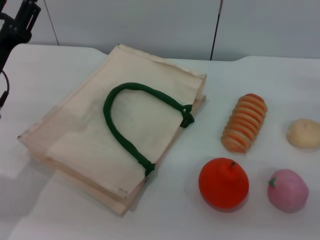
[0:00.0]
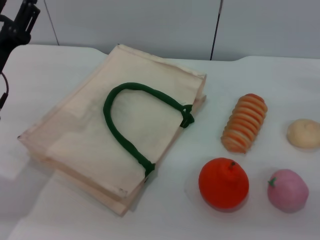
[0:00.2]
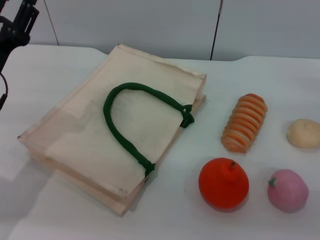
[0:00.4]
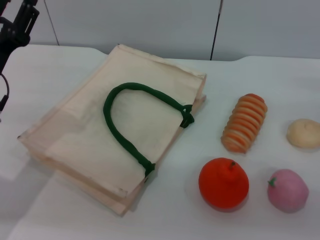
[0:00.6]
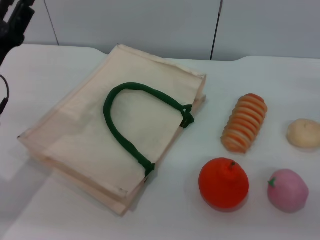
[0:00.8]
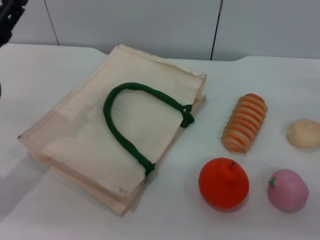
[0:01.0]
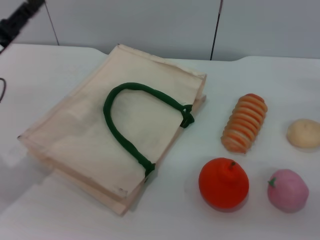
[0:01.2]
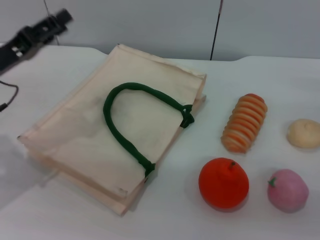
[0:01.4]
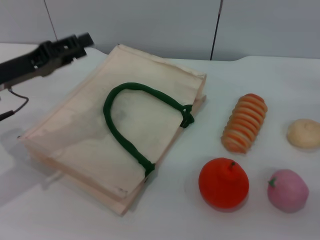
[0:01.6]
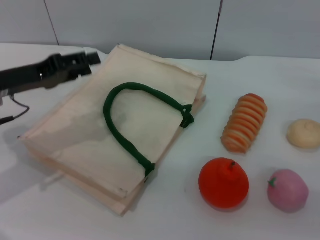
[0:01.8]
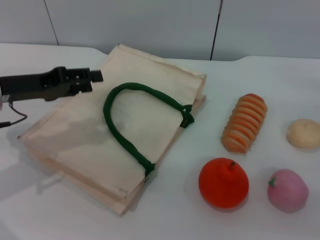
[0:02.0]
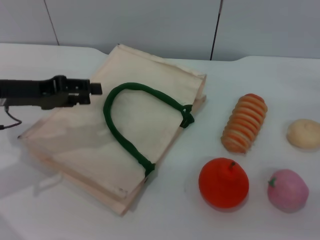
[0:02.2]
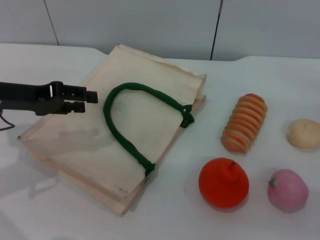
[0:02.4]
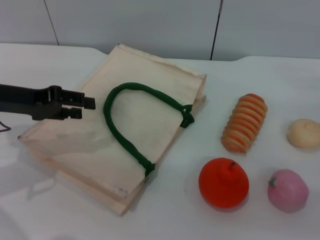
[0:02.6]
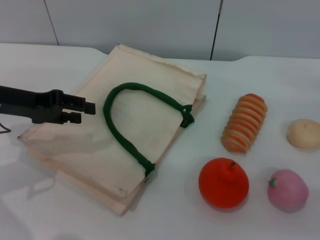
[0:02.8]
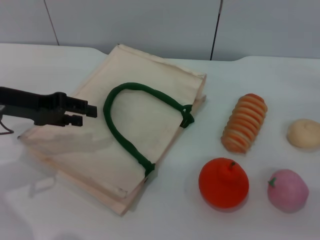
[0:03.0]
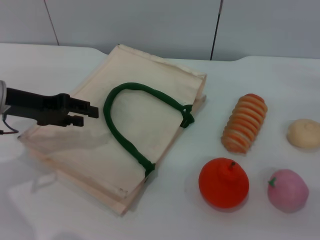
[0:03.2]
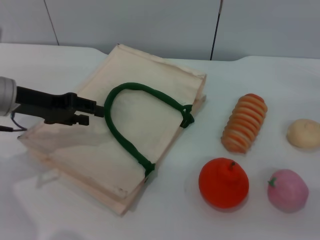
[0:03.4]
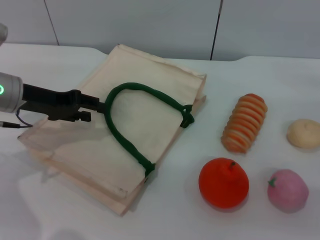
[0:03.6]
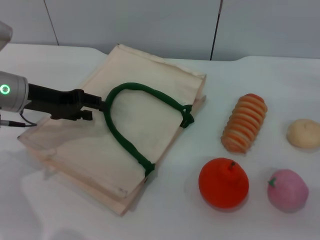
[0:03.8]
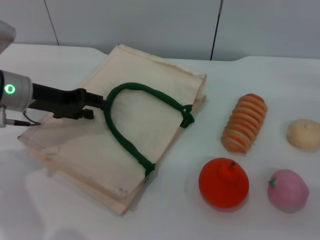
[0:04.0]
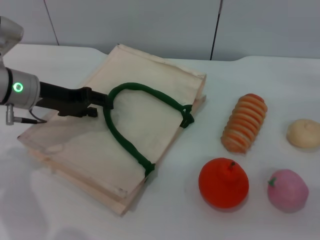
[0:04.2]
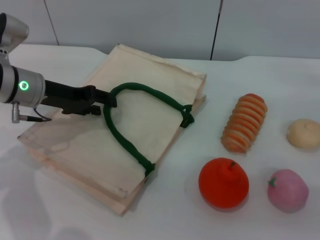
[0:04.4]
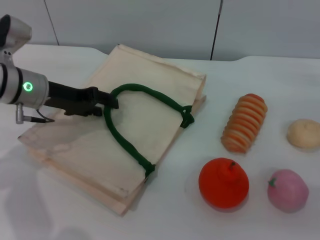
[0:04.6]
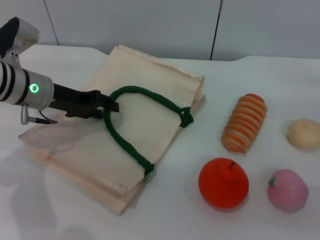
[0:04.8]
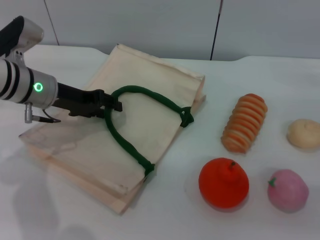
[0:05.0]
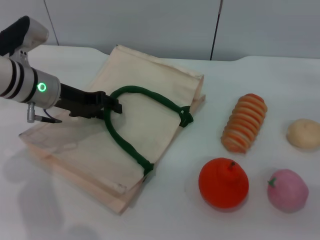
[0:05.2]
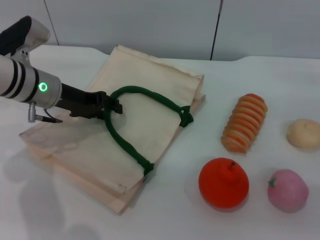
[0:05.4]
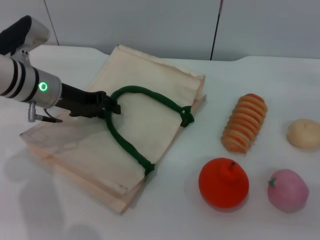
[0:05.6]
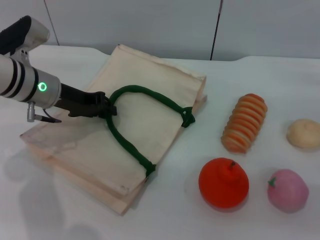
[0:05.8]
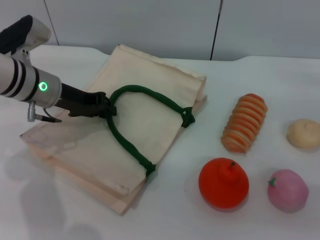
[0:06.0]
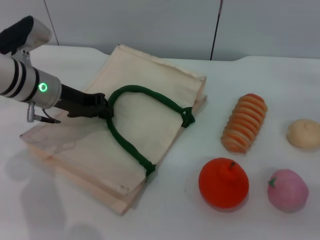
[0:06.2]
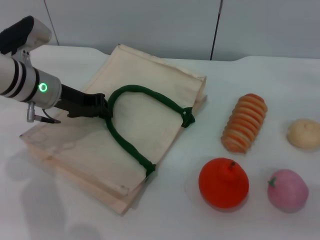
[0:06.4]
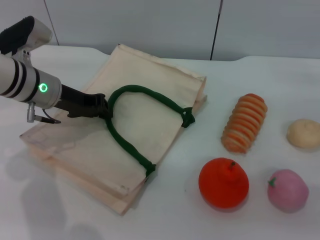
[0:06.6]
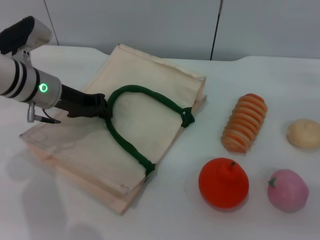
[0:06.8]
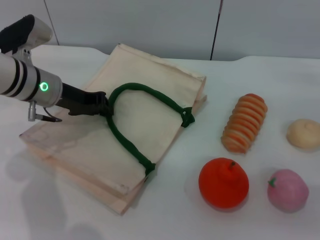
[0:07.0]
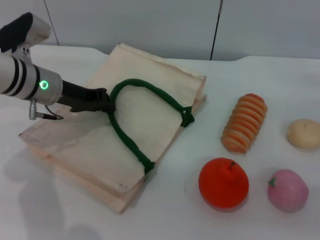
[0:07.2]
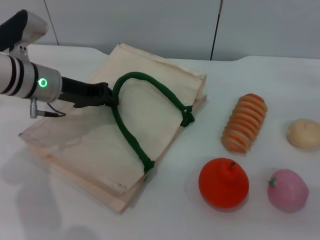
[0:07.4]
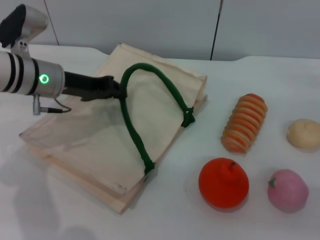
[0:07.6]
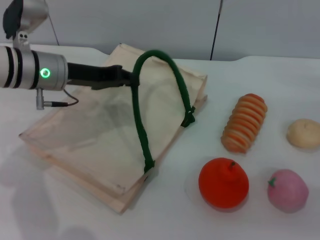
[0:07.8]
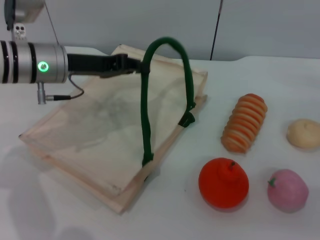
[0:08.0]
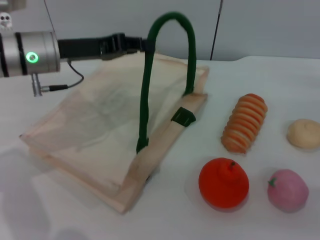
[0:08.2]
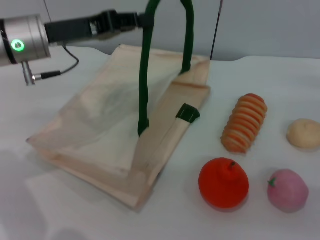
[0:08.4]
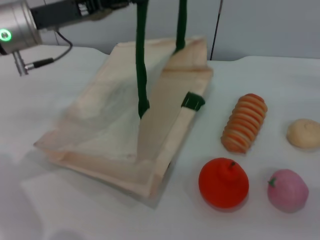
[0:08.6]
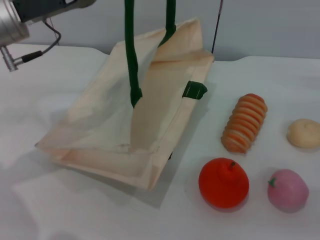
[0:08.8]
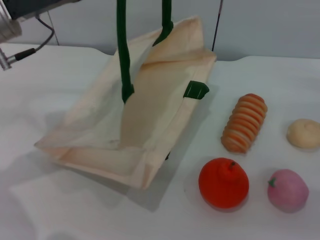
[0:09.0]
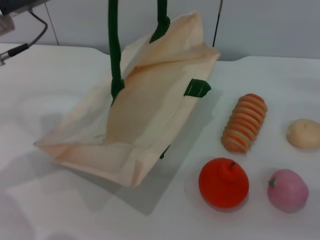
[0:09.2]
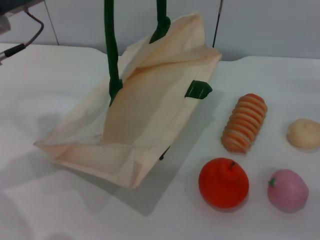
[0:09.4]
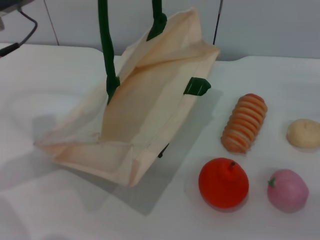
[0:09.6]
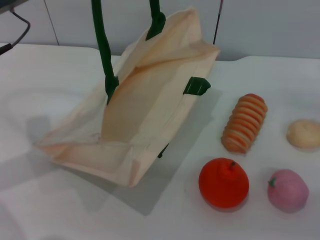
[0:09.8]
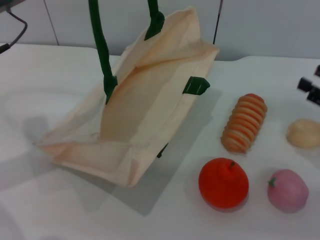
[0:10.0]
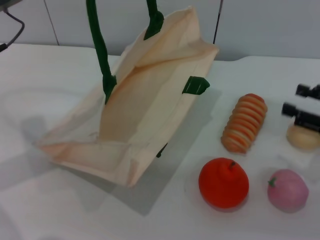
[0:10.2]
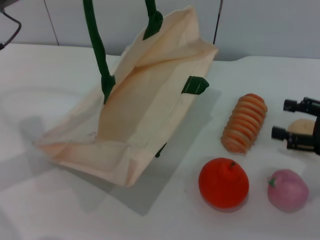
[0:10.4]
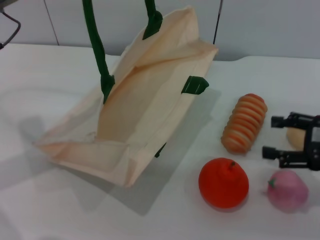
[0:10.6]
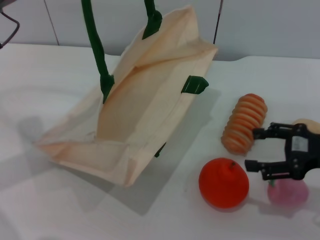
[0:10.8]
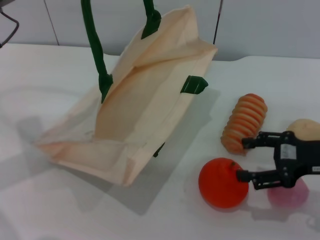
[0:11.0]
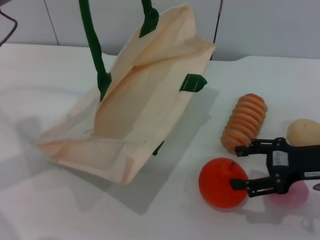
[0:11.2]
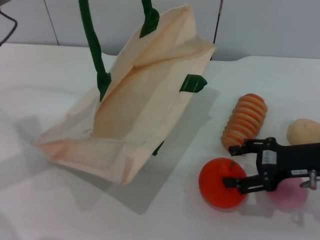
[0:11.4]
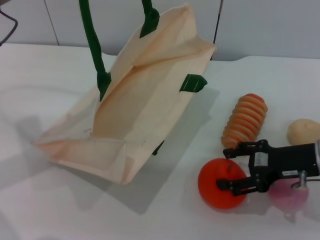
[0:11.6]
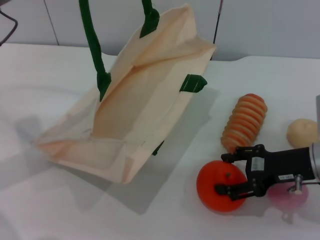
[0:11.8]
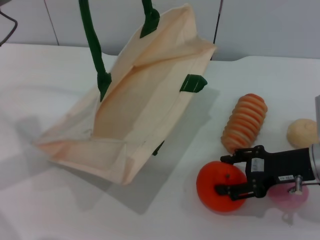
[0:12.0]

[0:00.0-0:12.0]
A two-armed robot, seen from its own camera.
Task of the whole recording: pick up the orange from the table and place it in the white handbag.
Step, 0:00.0 to 0:08.6: Lift the woven bag with the left gripper to open it.
0:03.0 to 0:04.4: The left gripper moves approximately 5 cm.
0:04.4 to 0:06.0: The left gripper closes its fingers.
0:06.0 to 0:07.6: The left gripper closes up.
0:07.6 to 0:09.0: The left gripper travels upward by about 10 cm.
0:09.0 to 0:10.4: The right gripper ends up about 5 cm from where it was.
0:10.4 to 0:12.0: The right gripper is displaced to the left by about 10 cm.

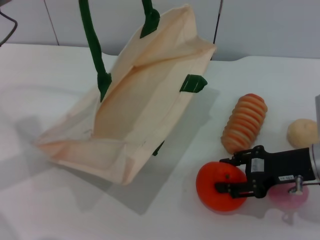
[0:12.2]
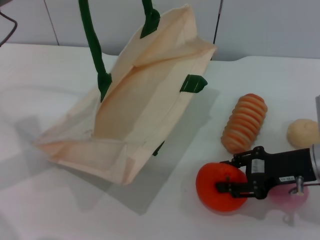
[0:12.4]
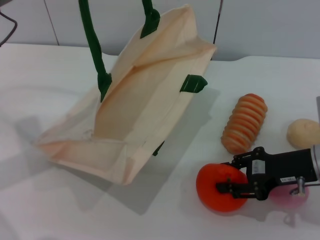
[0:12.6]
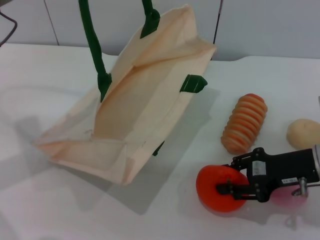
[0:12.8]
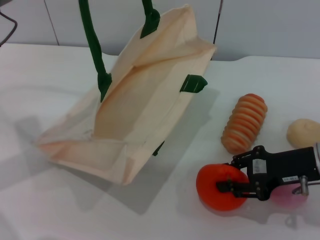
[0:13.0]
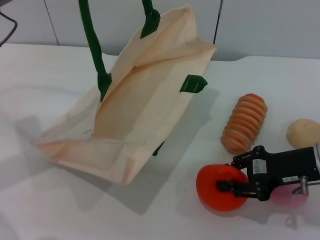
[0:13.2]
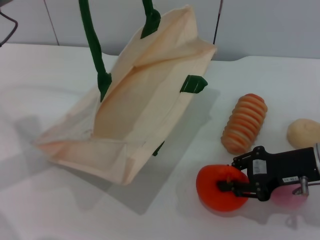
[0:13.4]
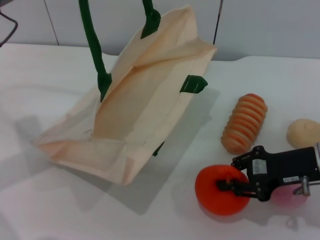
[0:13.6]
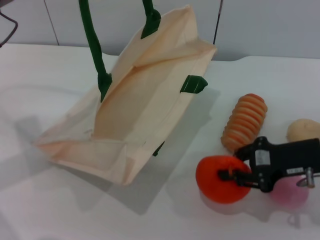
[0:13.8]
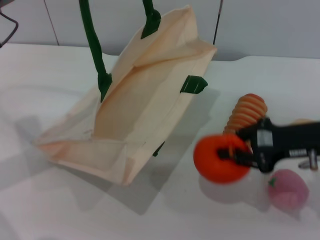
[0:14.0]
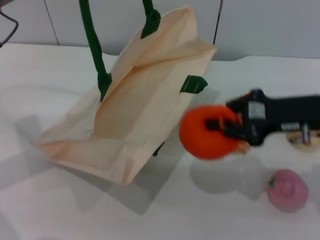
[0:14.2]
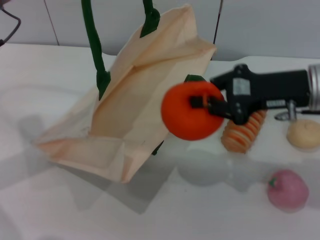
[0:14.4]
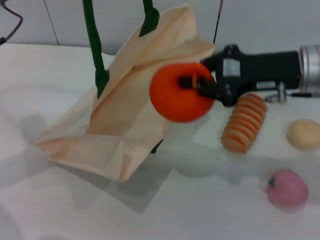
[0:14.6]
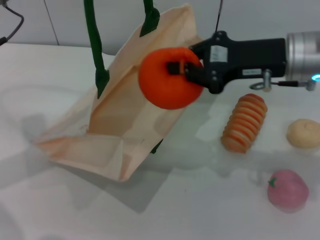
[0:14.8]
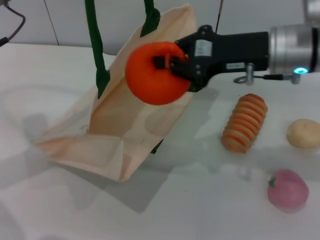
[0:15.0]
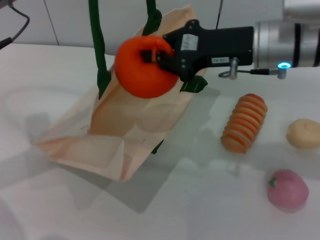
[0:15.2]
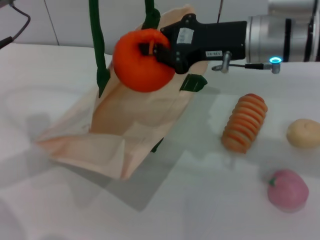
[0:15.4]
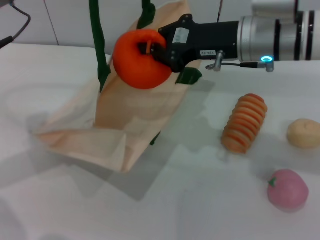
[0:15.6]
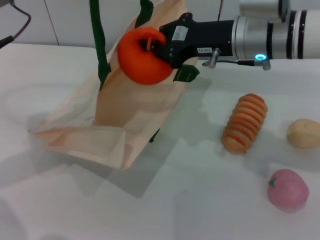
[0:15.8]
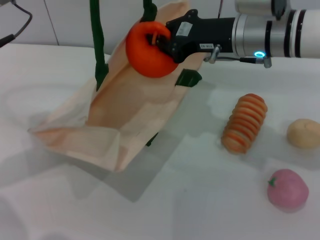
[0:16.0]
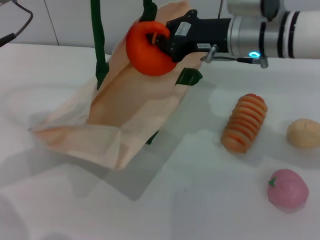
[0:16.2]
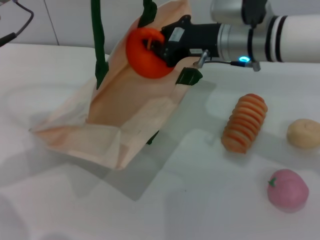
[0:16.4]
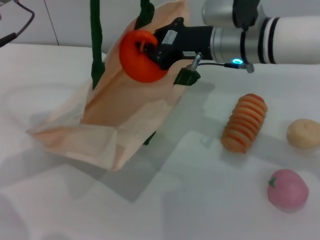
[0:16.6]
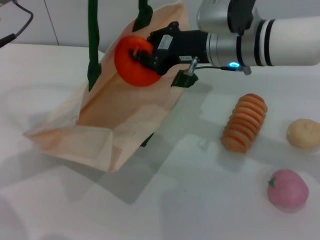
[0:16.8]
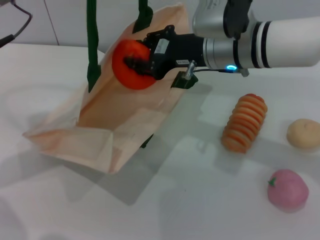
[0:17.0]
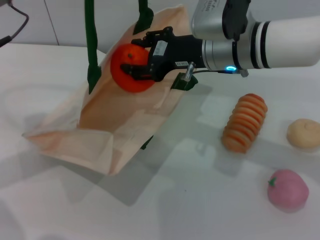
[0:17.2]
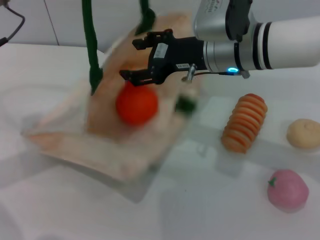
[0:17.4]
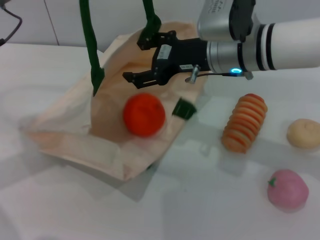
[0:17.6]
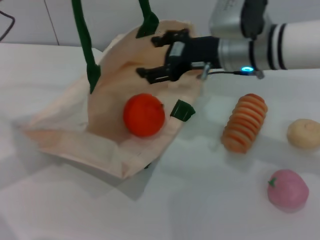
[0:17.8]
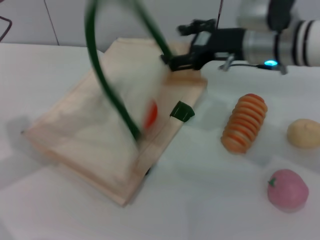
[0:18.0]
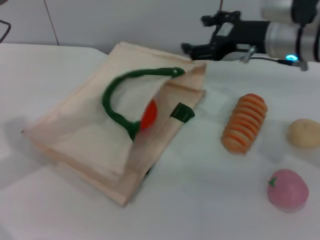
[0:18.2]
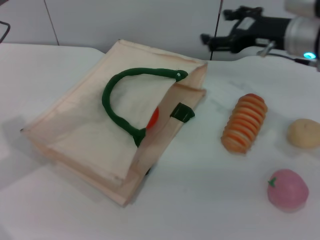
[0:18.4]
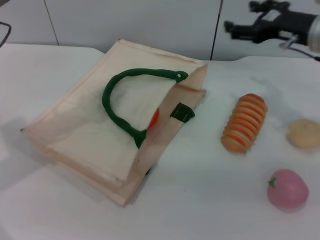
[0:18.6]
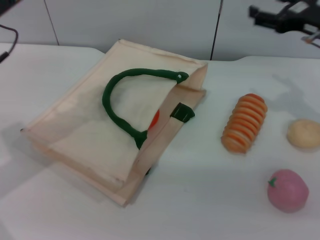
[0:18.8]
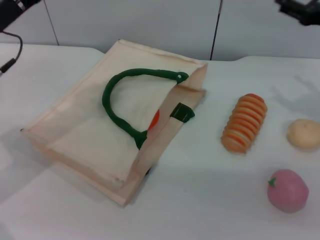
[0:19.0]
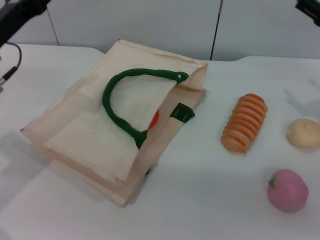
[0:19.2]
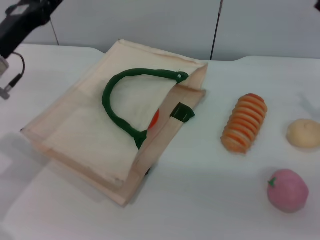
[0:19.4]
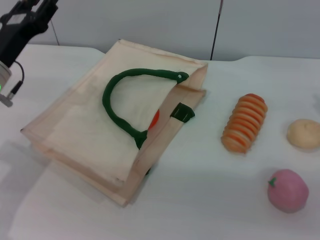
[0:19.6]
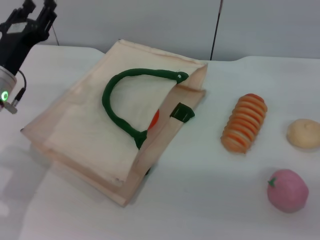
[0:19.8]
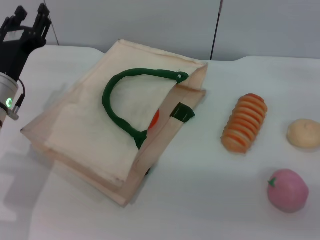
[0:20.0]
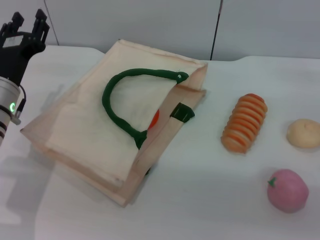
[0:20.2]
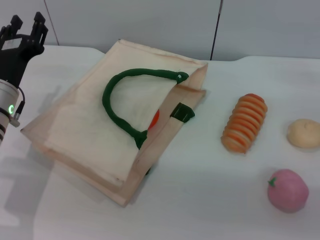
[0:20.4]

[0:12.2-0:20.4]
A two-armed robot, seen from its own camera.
Task of the whole recording: pick up the orange from the table and place it in the white handbag.
Step, 0:14.2 to 0:17.6: Place the orange into the woven bag with the right gripper.
0:12.2 to 0:13.8: The right gripper closes its fingers.
0:13.8 to 0:15.4: The right gripper is displaced to the left, upward and forward by about 15 cm.
0:15.4 to 0:17.2: The right gripper moves some 5 cm, and opens up.
0:17.2 to 0:18.8: The right gripper moves to the right, some 15 cm, and opens; the left gripper opens.
0:18.8 to 0:20.4: The right gripper is displaced to the right, downward and backward by roughly 15 cm. Meanwhile the left gripper travels downward by about 10 cm.

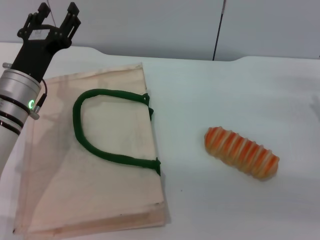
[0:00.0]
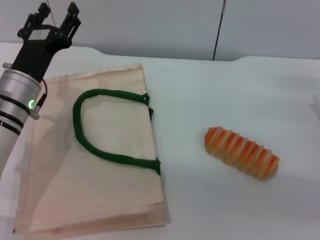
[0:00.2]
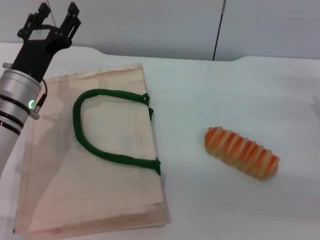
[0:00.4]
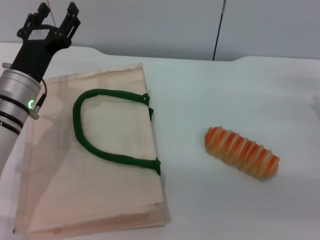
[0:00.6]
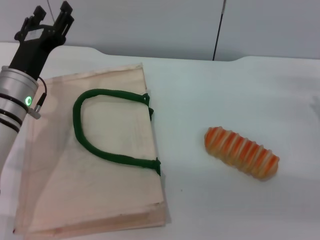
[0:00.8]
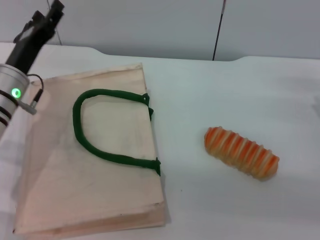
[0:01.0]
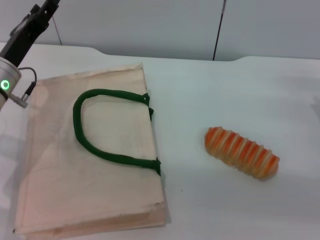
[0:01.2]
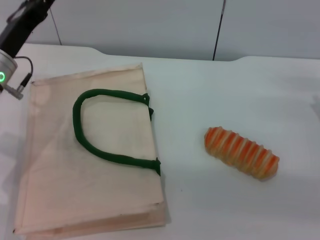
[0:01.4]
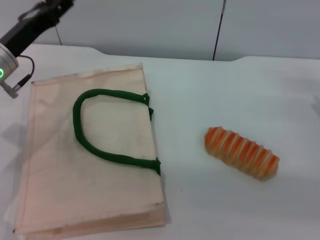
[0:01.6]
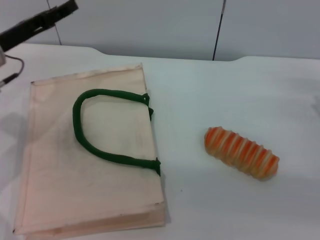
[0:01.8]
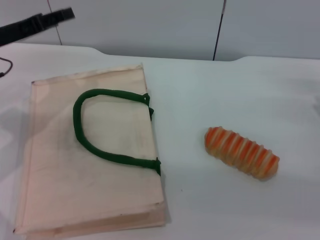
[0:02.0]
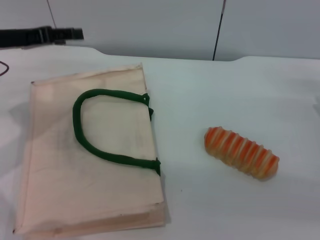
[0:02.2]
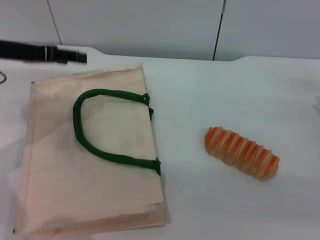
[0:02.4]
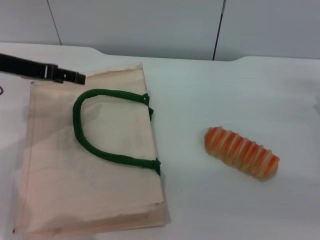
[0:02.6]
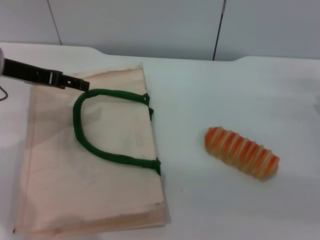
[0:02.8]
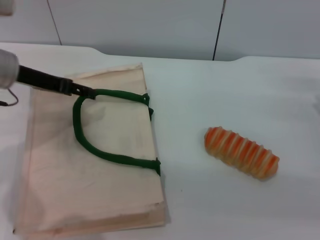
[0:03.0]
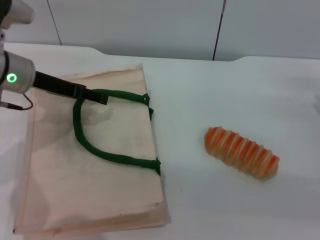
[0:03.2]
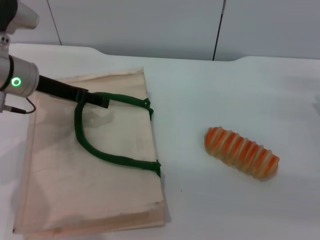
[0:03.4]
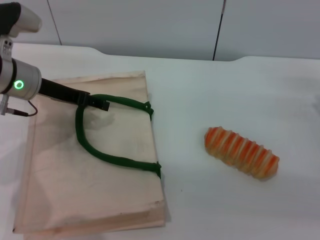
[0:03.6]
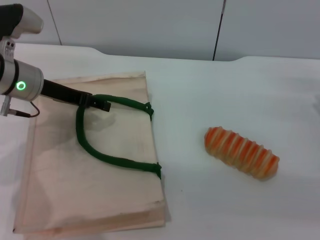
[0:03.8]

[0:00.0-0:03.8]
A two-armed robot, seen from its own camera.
Task of the whole recording: pick up the bread from the table and place it in the white handbag.
0:01.2 to 0:02.6: The left gripper goes some 10 cm upward.
0:02.6 to 0:03.8: The left gripper moves some 5 cm.
